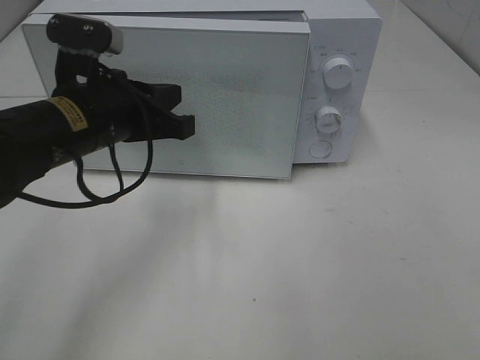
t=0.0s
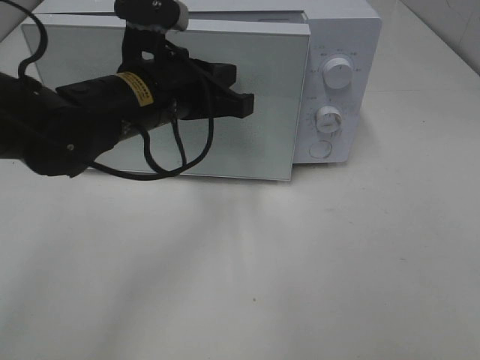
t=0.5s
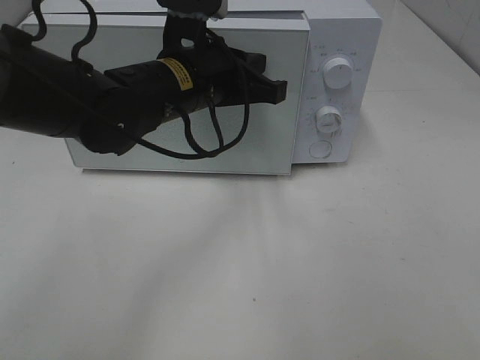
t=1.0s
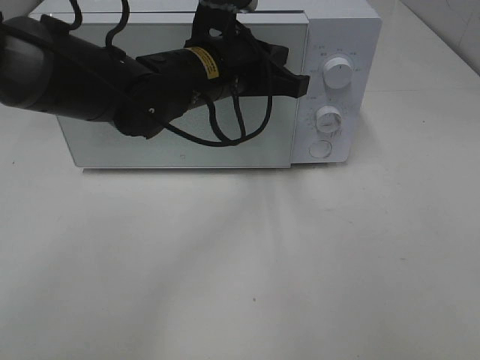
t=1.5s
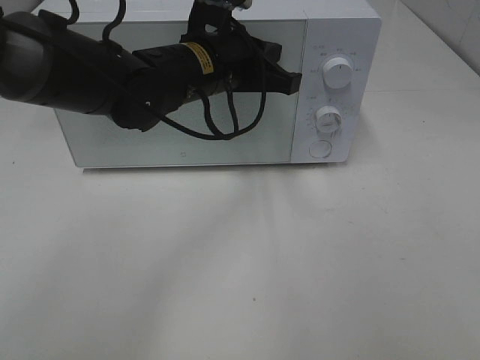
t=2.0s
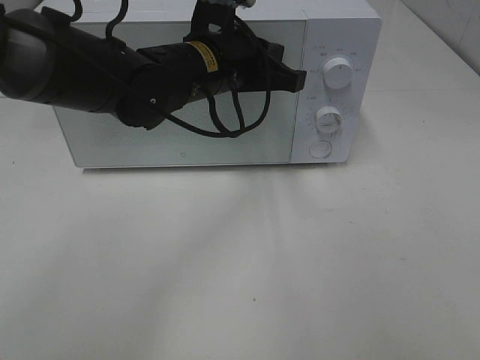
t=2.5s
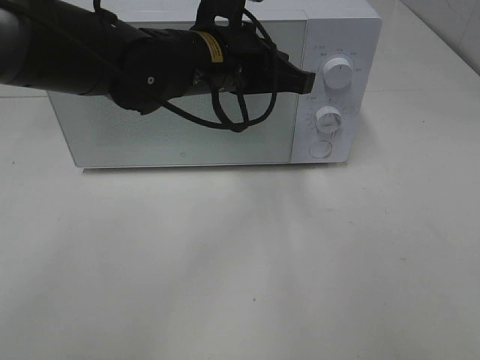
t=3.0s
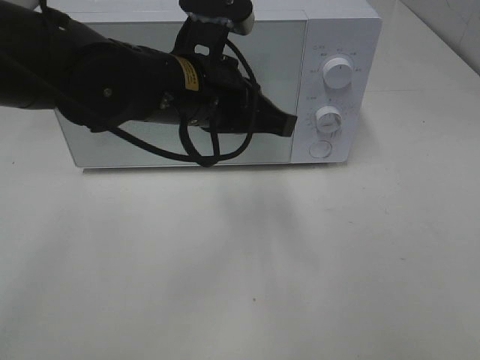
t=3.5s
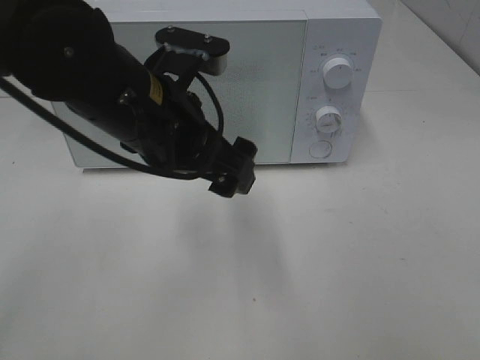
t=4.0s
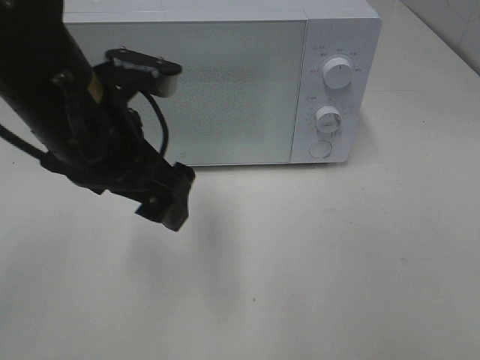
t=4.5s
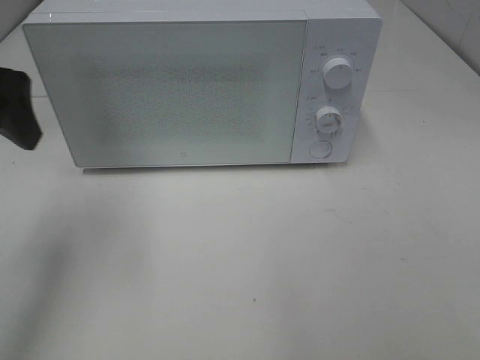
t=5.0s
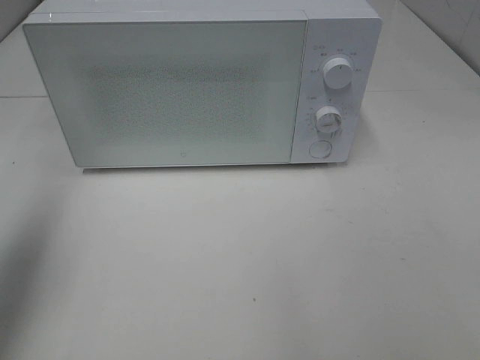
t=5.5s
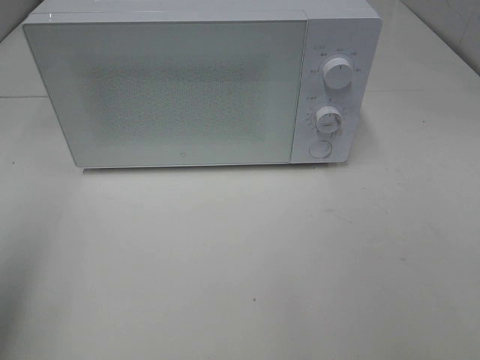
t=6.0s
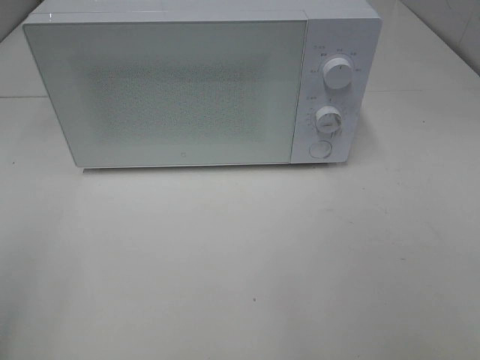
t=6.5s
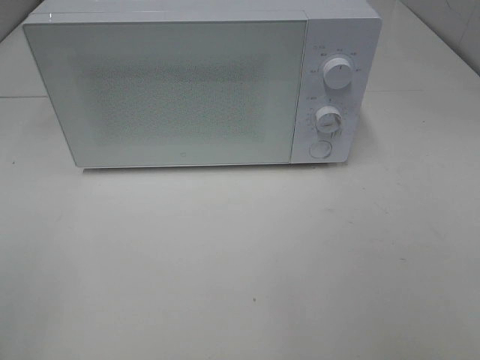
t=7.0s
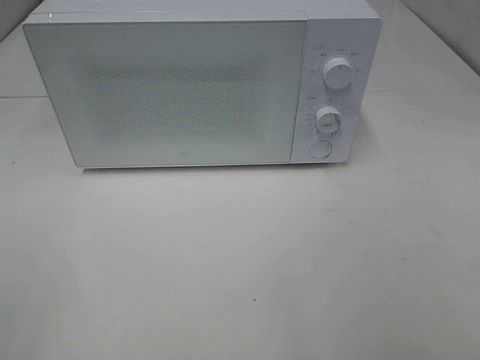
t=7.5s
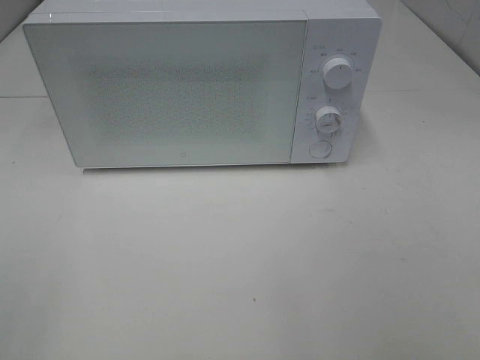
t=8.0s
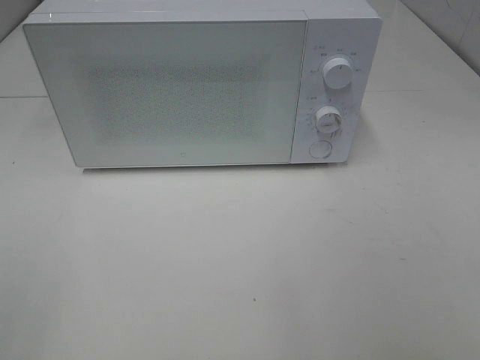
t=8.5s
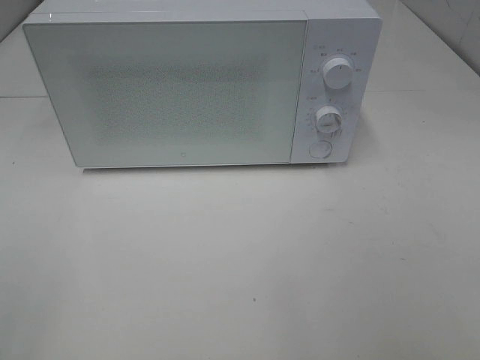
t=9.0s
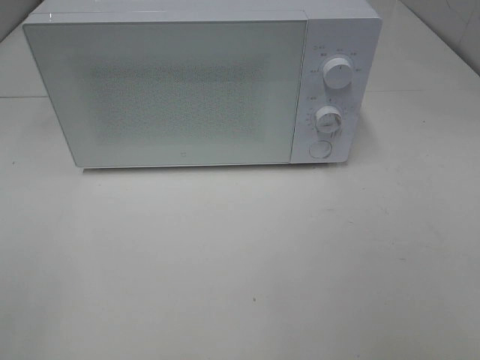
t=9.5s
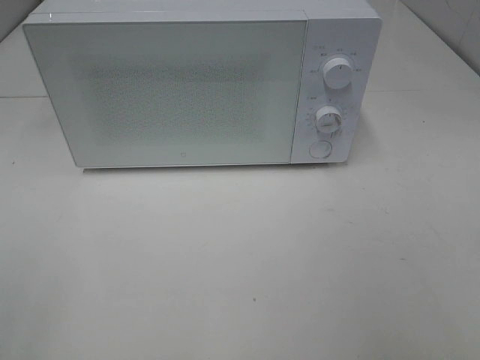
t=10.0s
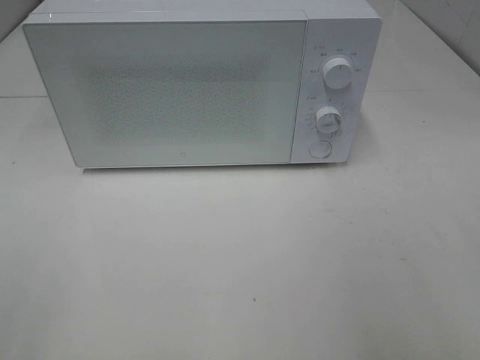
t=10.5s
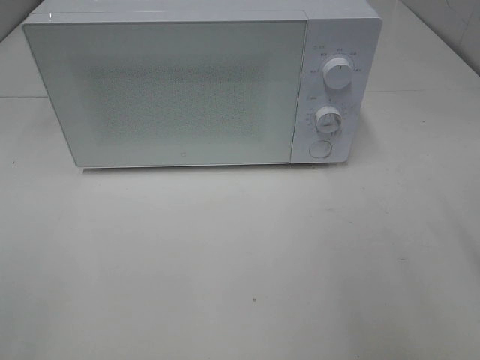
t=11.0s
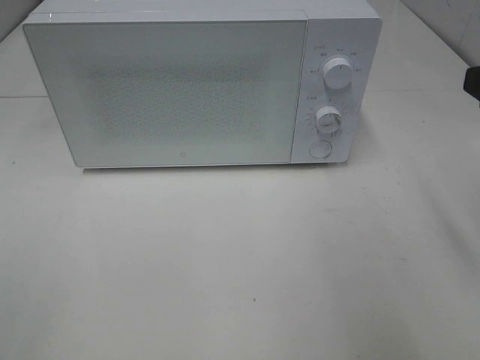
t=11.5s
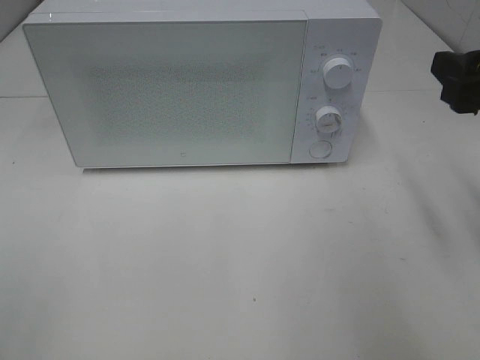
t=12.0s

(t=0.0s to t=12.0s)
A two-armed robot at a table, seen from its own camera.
Task of the whole recording: Heat Sandwich.
Step, t=0.0s - t=2.5s: Left hand: close the microwave door.
t=0.0s - t=2.0s: The left gripper shifts roughly 10 cm to the right and forward.
t=2.0s - t=4.0s: The left gripper goes approximately 10 cm backward, and opens up.
t=4.0s - t=6.0s: The left gripper goes some 30 cm to the left and backward.
t=6.0s - t=8.0s: The left gripper is displaced backward by about 15 cm.
t=10.0s - t=12.0s: The right gripper goes some 15 cm forward.

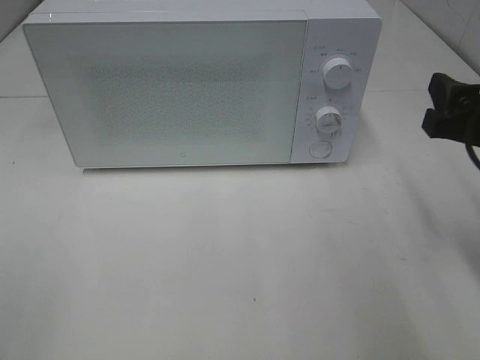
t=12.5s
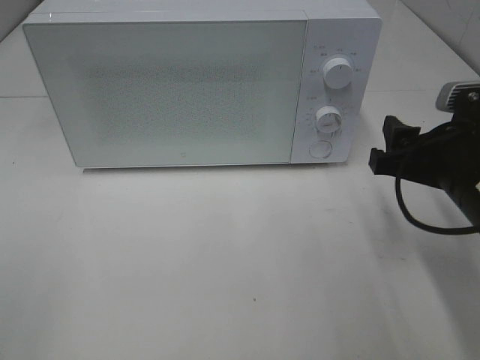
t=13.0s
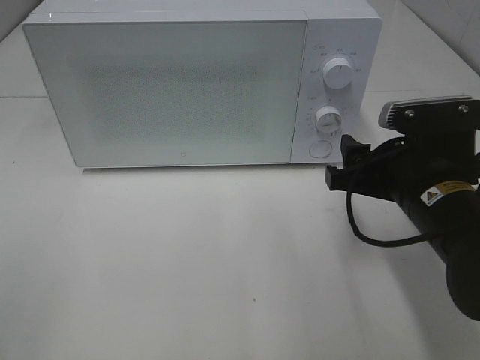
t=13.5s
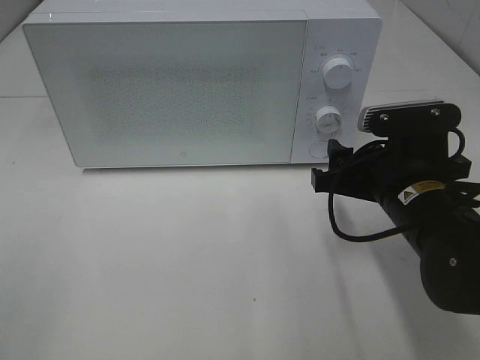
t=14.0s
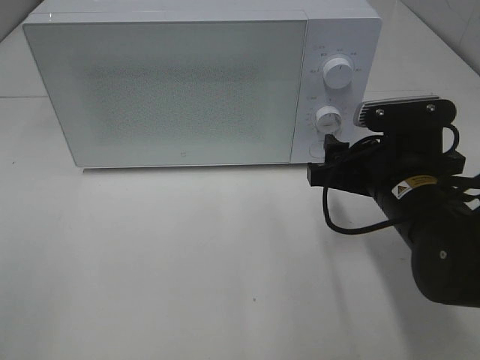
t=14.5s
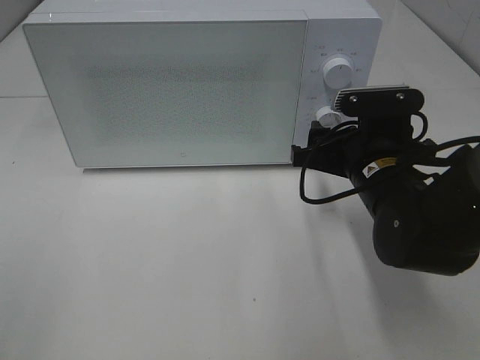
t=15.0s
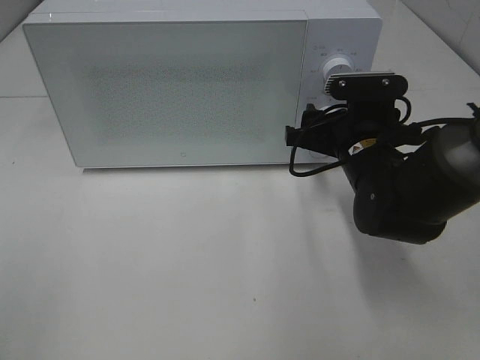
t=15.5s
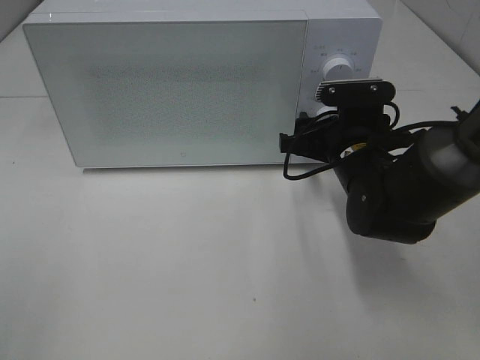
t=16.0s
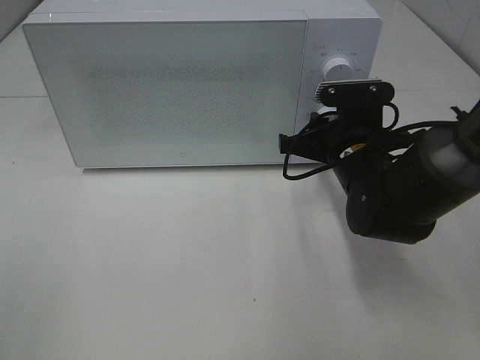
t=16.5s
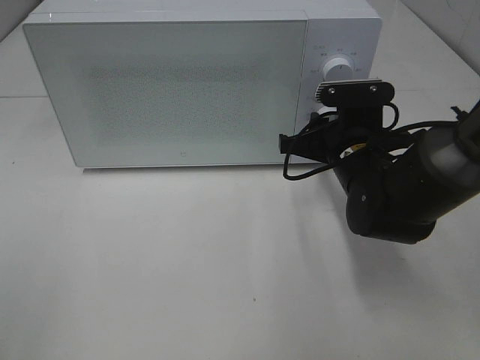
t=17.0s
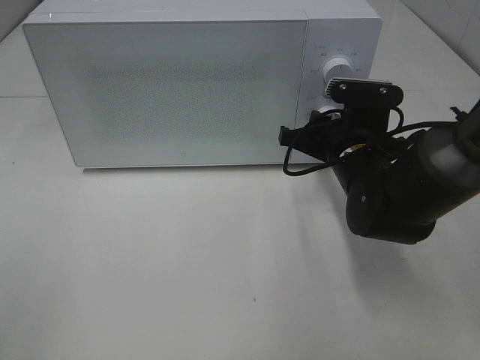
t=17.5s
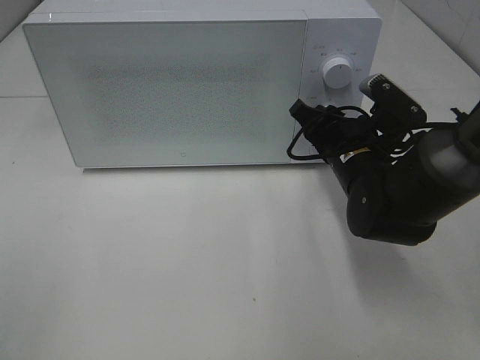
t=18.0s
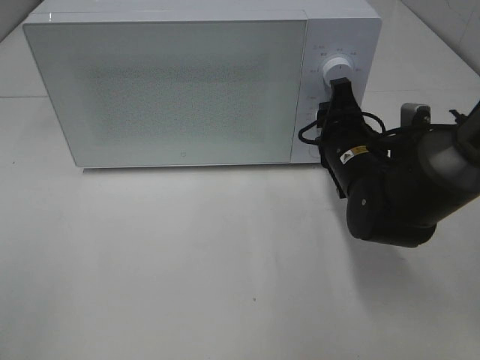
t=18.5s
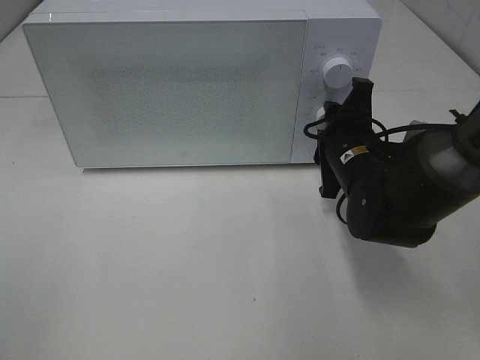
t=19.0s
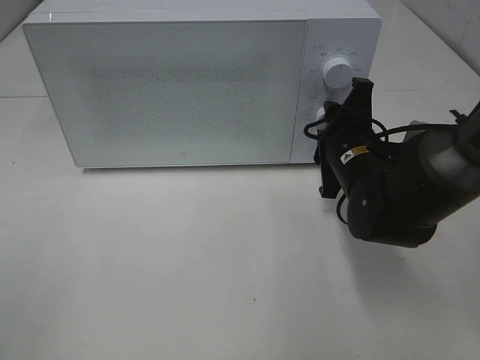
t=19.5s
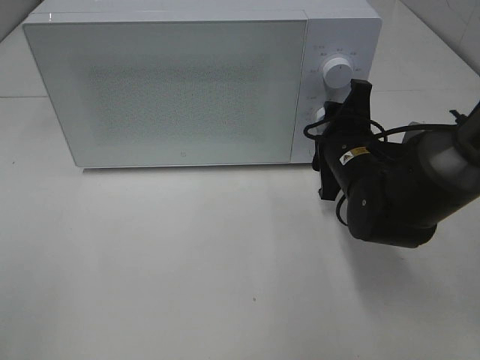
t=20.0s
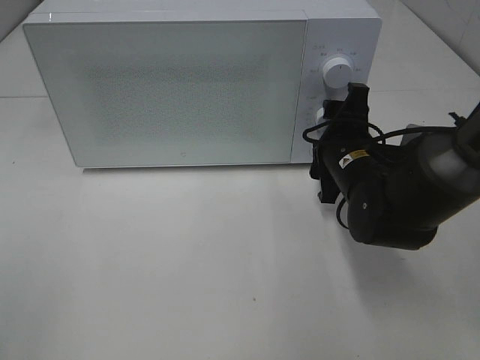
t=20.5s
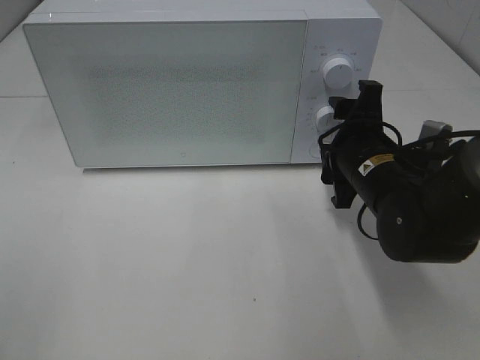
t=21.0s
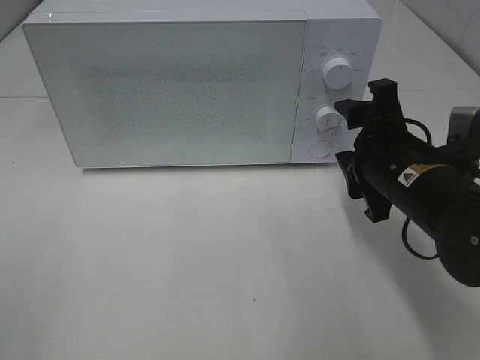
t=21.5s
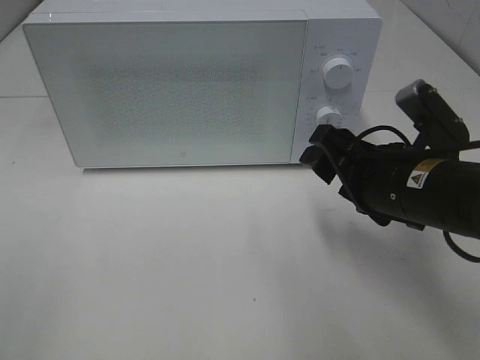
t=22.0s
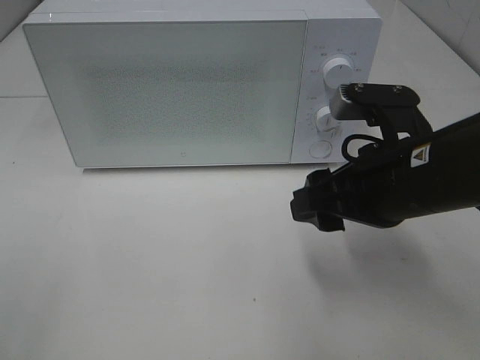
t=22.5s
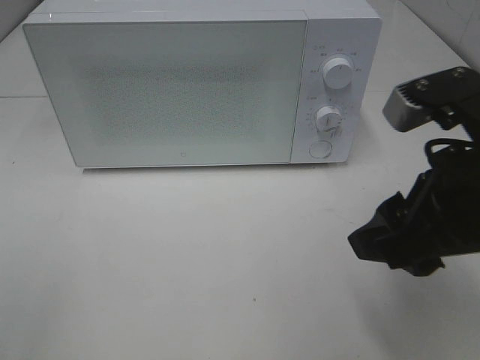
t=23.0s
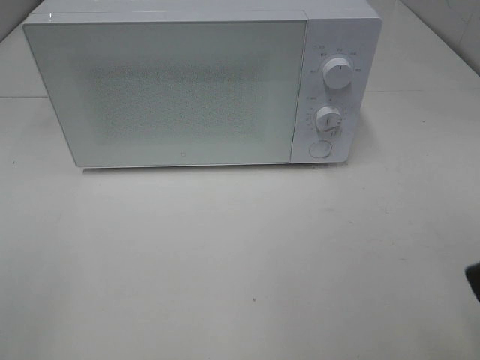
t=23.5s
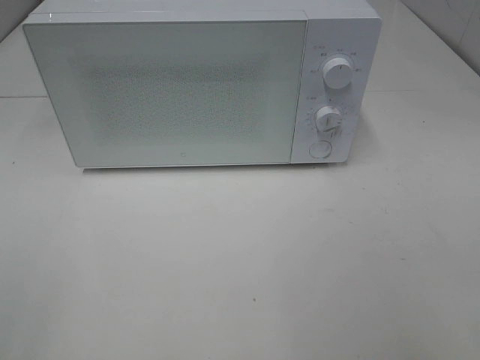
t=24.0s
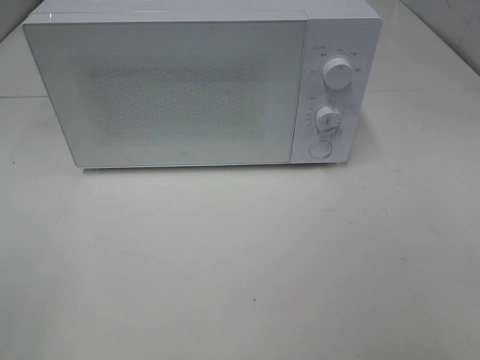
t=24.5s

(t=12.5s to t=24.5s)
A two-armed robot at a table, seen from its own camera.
Task of the whole recording: Heat Sandwich.
Step, t=12.5s - t=21.0s: Right hand: twist timer button.
t=12.5s - t=14.5s: The right gripper travels to the left and downward by roughly 10 cm.
t=14.5s - t=16.5s: The right gripper moves forward, approximately 10 cm, and closes.
t=18.5s - t=20.5s: The grippers make only small movements.
t=20.5s - t=22.5s: The right gripper shifts approximately 15 cm backward and upward.
t=22.5s - t=24.5s: The right gripper goes roughly 25 cm backward and to the right.

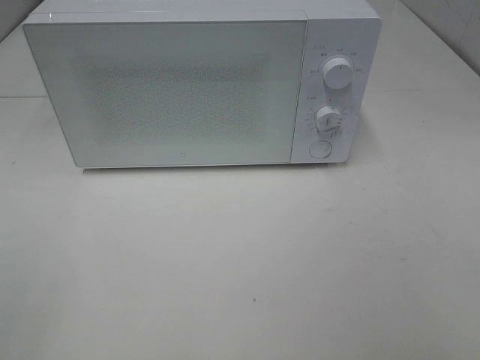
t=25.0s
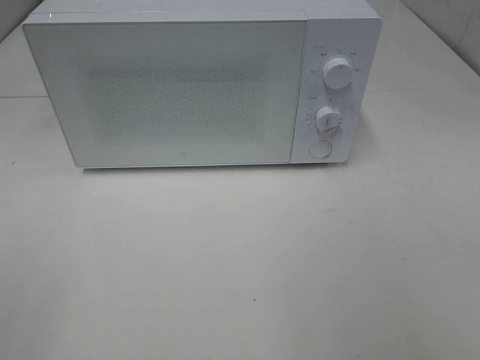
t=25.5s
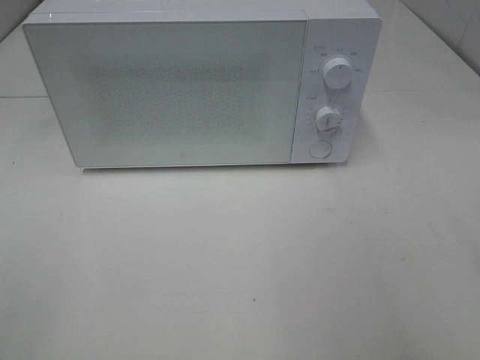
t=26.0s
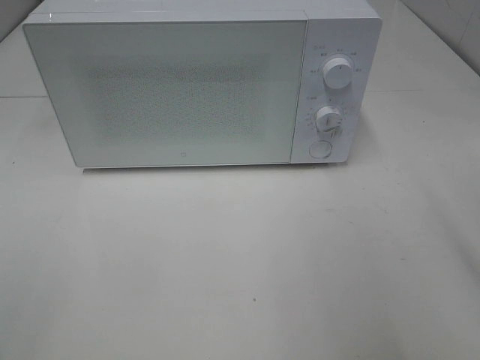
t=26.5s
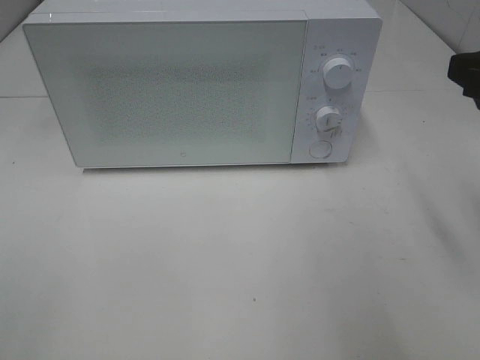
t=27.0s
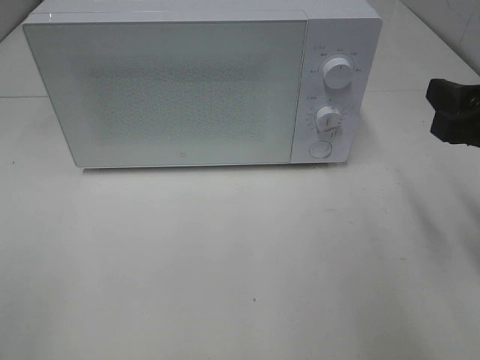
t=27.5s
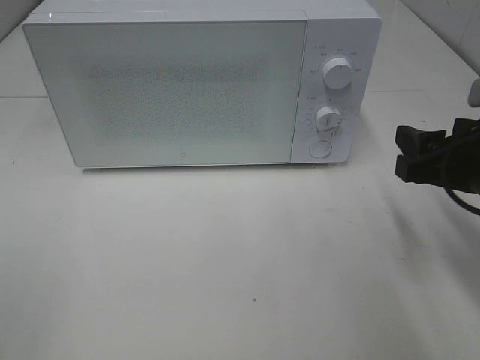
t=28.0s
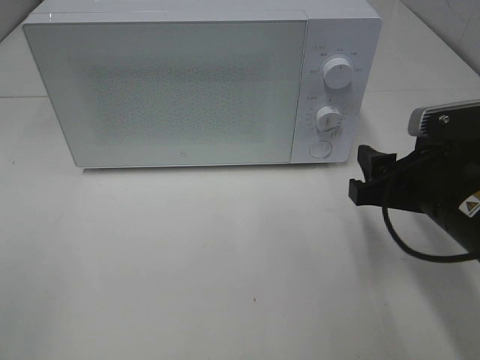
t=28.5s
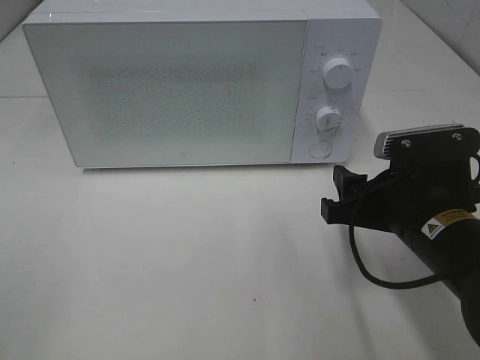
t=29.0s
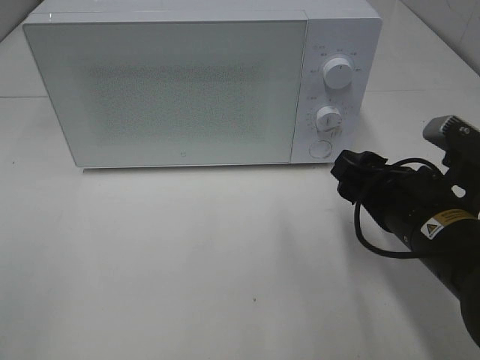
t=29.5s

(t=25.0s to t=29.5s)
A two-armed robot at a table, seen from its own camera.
Task of the whole recording: Heat Sandwich.
t=25.0s - t=27.0s: The right gripper travels forward by some 20 cm.
t=27.0s - t=29.5s: The right gripper shifts roughly 15 cm downward and to the left.
